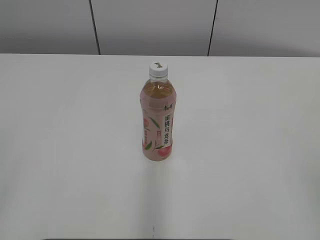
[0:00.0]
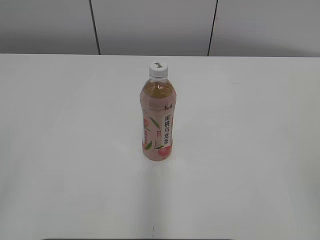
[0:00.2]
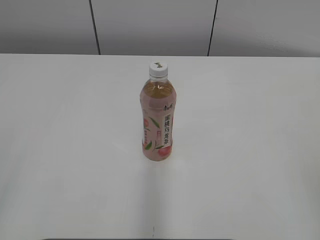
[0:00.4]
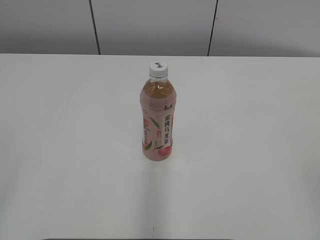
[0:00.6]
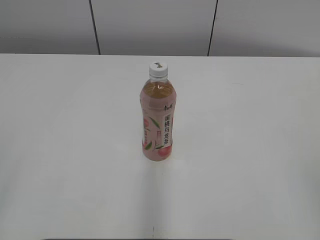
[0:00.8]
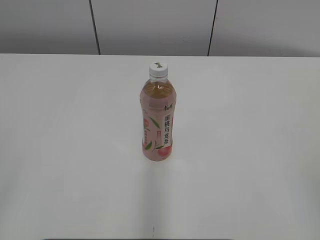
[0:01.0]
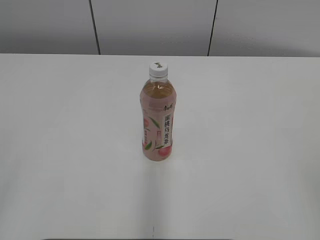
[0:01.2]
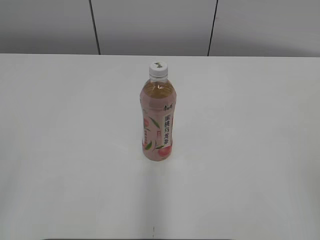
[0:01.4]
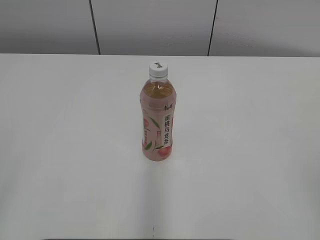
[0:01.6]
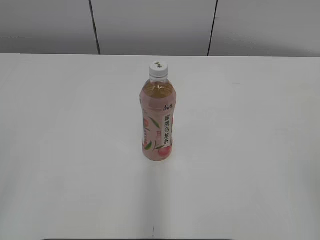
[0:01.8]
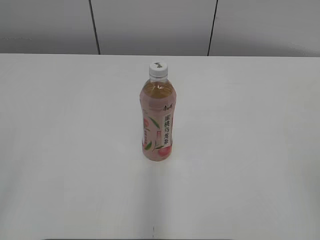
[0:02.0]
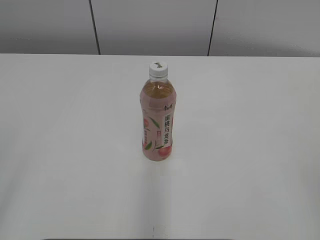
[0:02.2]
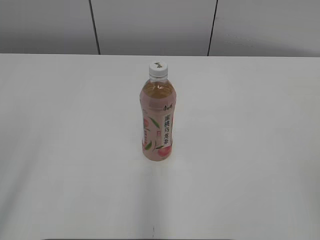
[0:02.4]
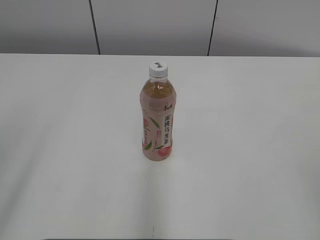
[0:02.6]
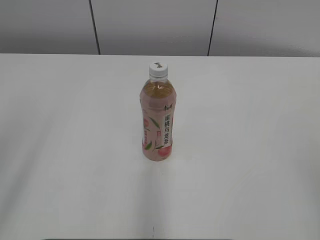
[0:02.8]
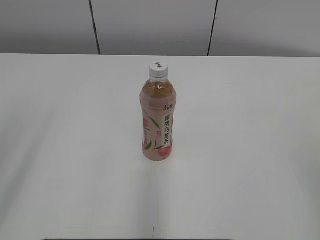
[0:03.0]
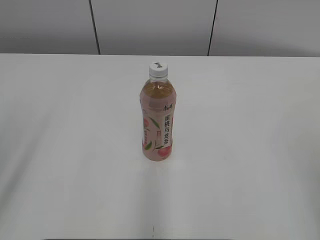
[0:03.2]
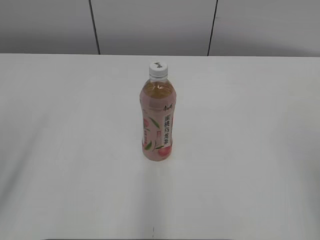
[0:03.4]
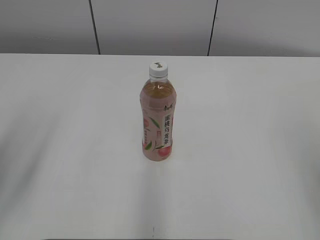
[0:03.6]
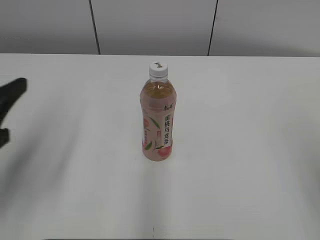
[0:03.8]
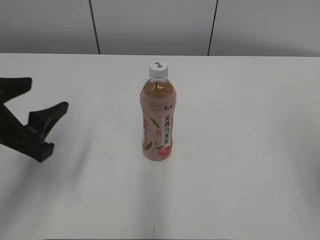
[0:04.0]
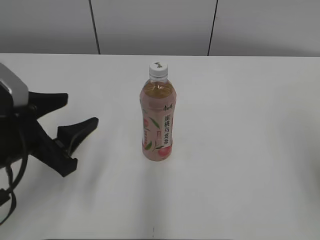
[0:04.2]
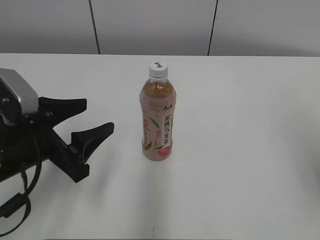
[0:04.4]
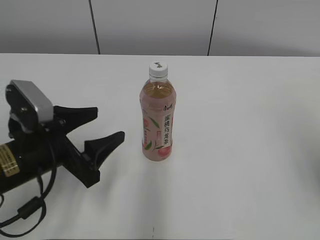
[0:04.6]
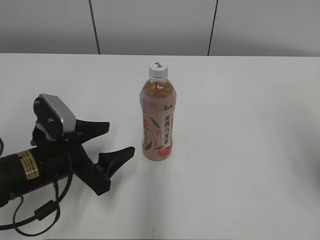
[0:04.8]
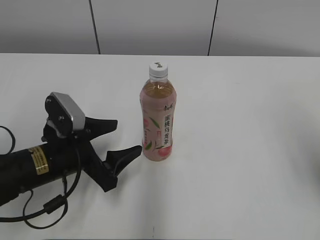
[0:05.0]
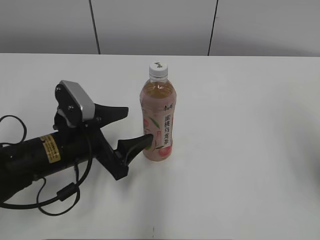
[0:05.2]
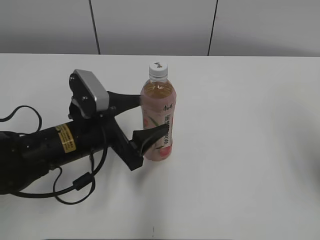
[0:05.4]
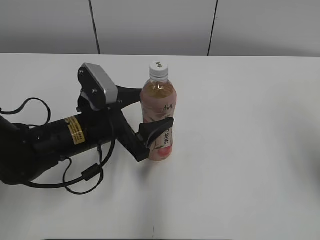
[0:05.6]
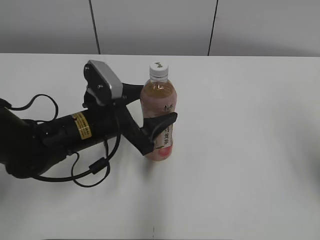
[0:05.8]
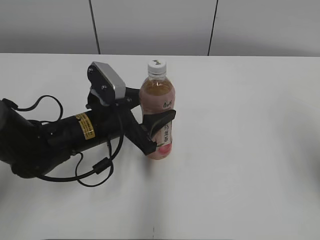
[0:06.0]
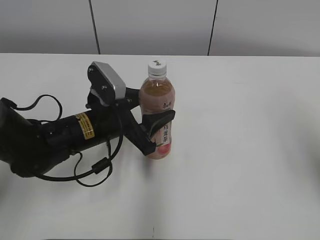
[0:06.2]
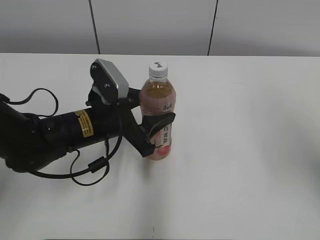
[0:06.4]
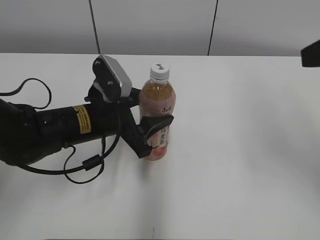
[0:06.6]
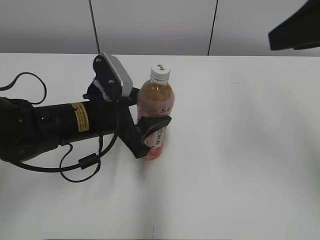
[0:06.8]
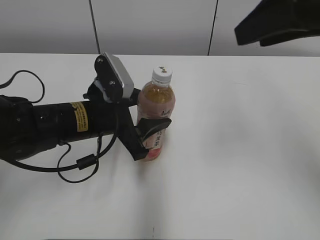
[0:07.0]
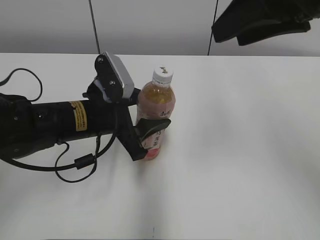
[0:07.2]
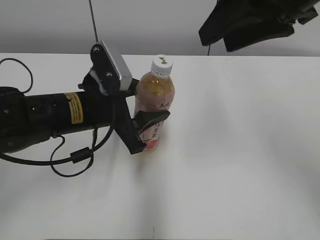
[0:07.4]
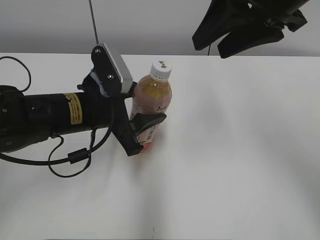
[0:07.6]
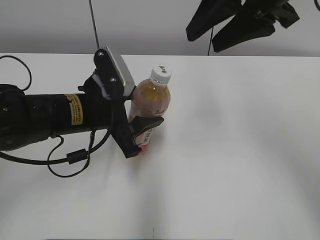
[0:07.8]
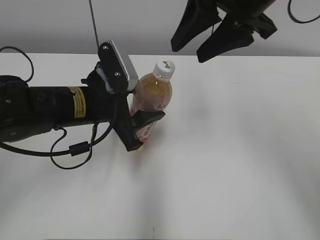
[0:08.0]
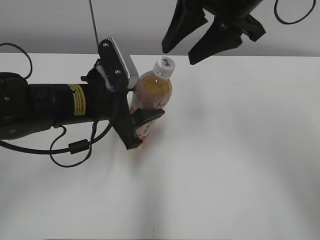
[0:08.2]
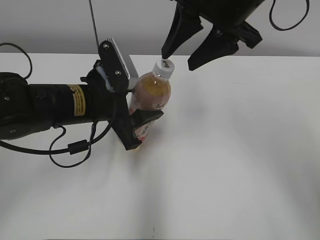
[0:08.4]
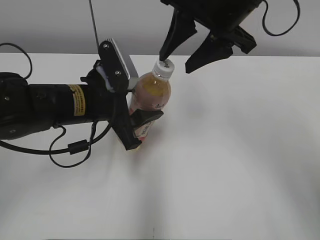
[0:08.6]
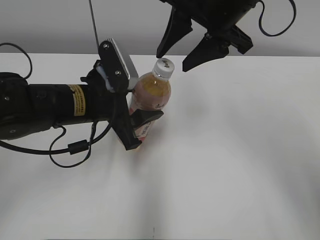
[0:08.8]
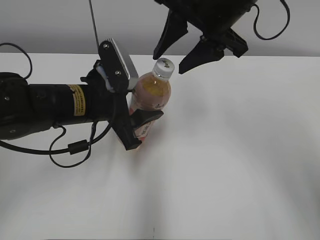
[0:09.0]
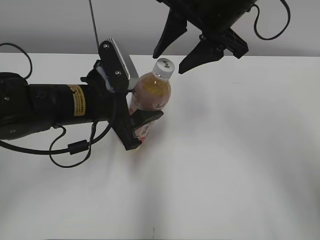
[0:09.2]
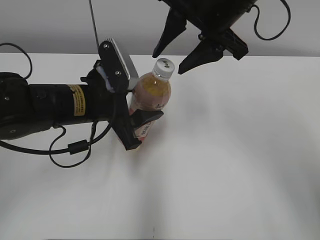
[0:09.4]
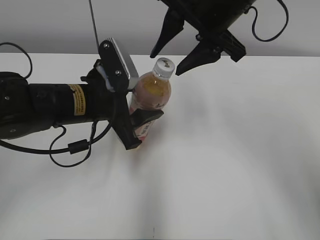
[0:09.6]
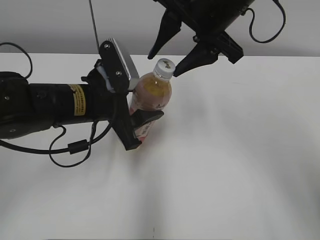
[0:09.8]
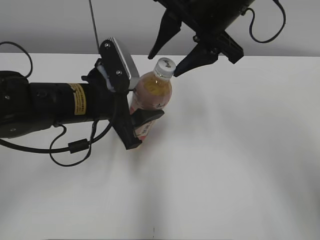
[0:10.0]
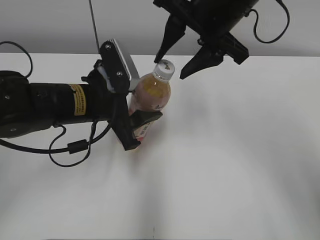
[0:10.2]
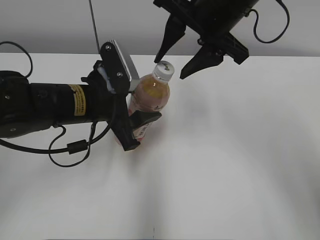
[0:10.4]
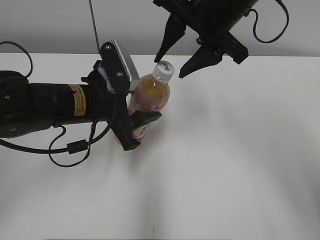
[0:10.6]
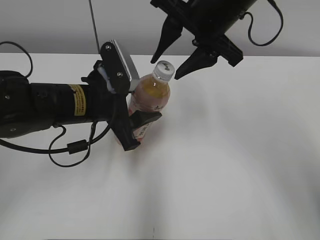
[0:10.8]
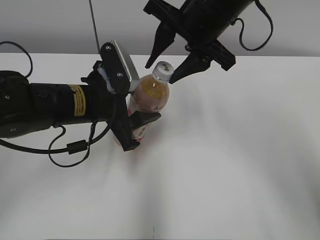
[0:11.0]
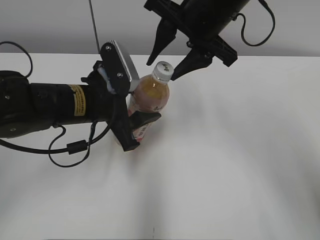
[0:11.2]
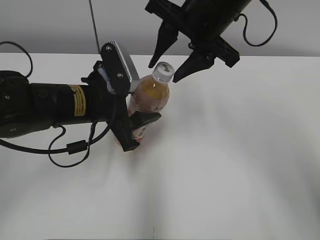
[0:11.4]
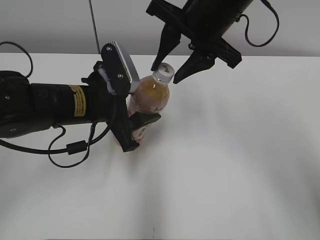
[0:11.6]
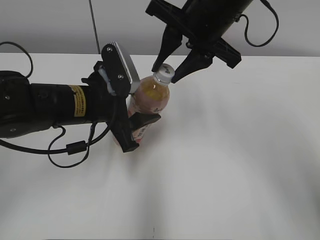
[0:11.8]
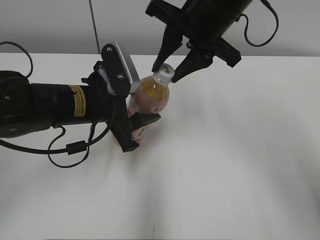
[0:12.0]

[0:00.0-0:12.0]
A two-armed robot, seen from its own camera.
Step, 0:00.0 to 0:06.0: Grasp the bottle and move it to the center of the table with the left gripper.
Step, 0:06.2 to 0:07.8: Lift the bottle and move it to the center of the table with the left gripper.
0:03.0 to 0:04.4: The left gripper is displaced downward, forward and to the right by about 25 cm.
0:04.4 to 0:06.0: The left gripper travels forward and to the right by some 10 cm, and opens, then closes again.
0:06.0 to 0:07.6: The left gripper closes up. The right gripper travels to the left, forward and upward by roughly 20 cm.
0:07.6 to 0:09.0: The right gripper travels forward and to the left by about 5 cm.
0:09.0 to 0:10.4: The grippers stay close to where they were, moving slightly.
0:10.4 to 0:12.0: The right gripper closes its fingers.

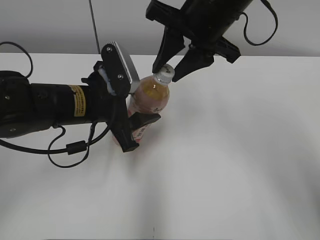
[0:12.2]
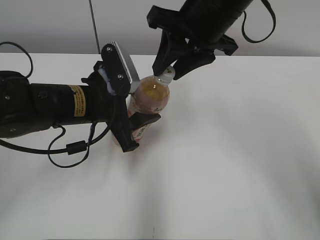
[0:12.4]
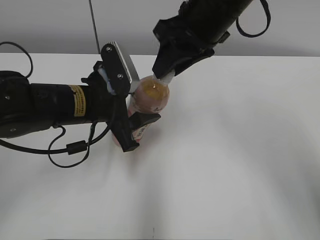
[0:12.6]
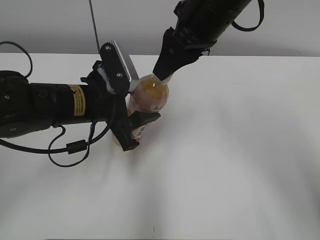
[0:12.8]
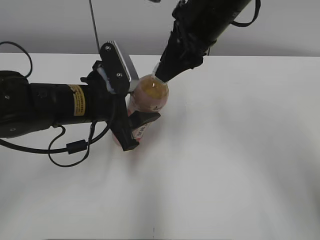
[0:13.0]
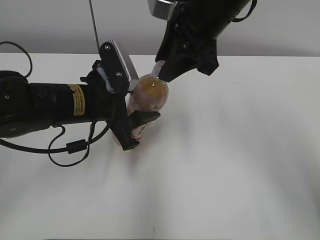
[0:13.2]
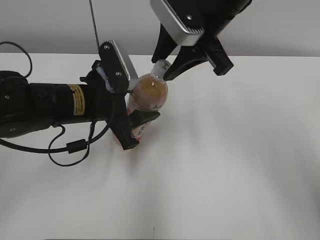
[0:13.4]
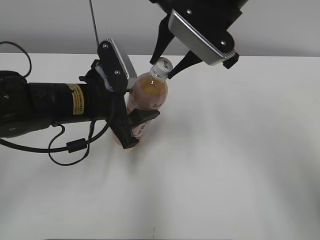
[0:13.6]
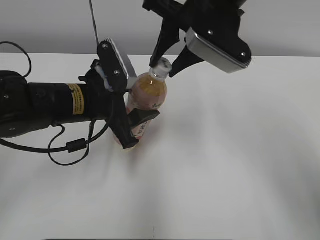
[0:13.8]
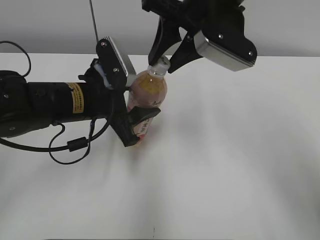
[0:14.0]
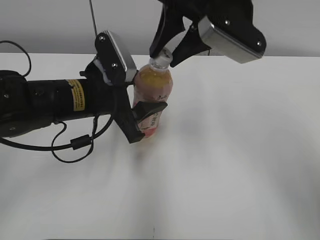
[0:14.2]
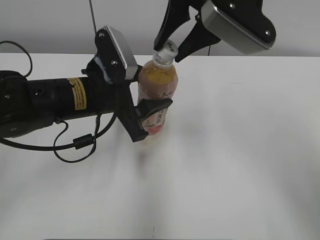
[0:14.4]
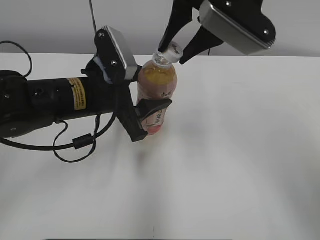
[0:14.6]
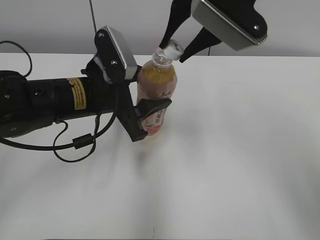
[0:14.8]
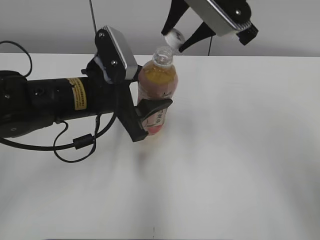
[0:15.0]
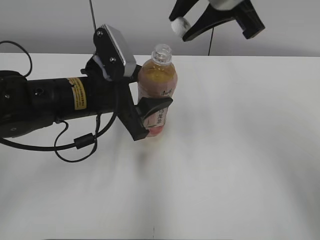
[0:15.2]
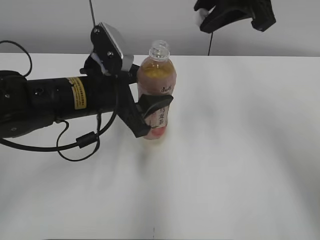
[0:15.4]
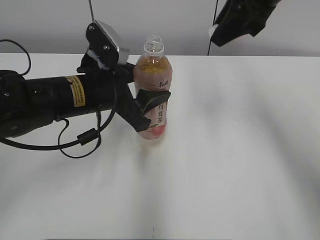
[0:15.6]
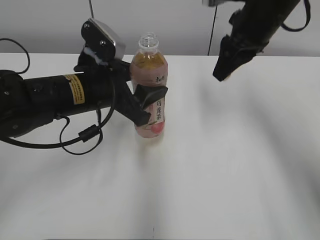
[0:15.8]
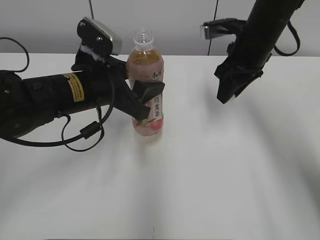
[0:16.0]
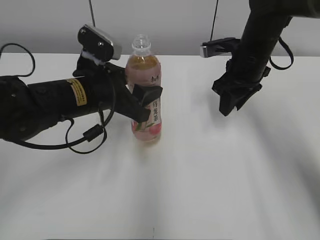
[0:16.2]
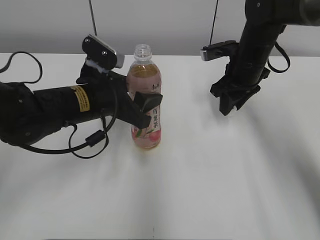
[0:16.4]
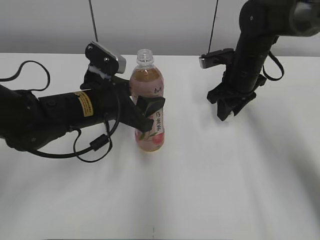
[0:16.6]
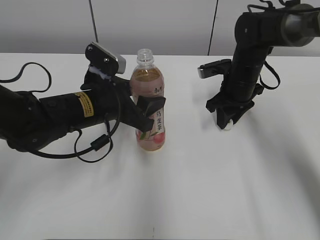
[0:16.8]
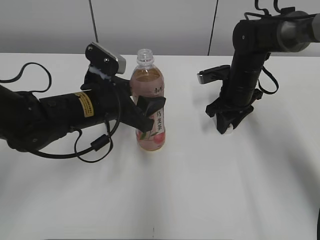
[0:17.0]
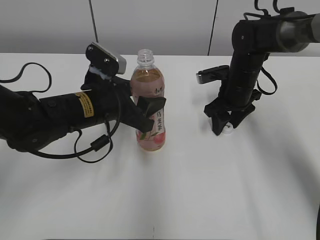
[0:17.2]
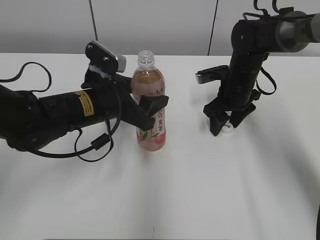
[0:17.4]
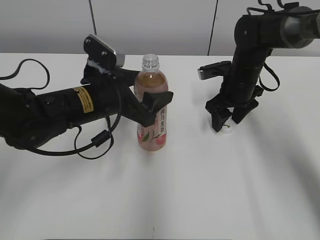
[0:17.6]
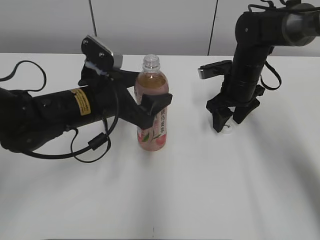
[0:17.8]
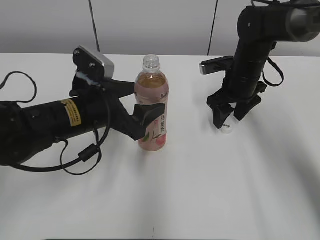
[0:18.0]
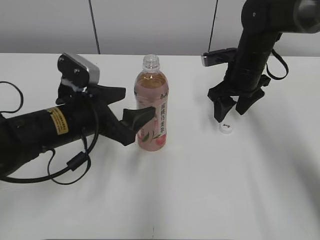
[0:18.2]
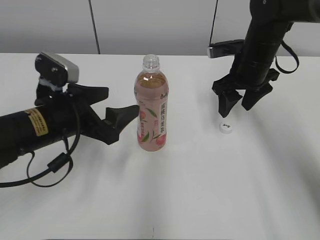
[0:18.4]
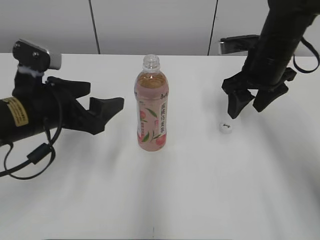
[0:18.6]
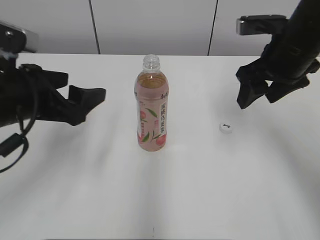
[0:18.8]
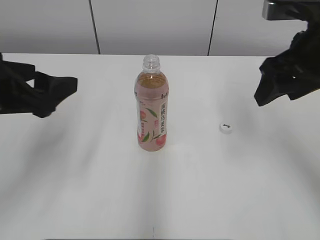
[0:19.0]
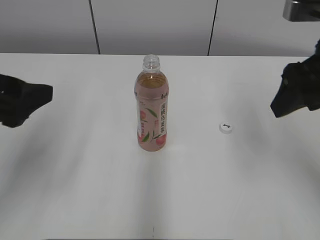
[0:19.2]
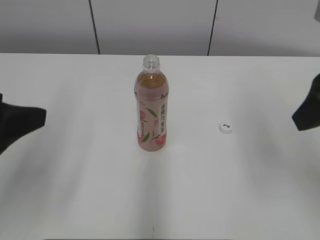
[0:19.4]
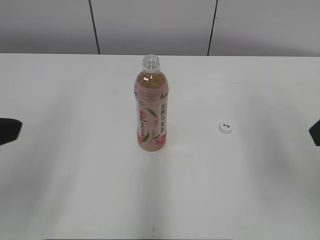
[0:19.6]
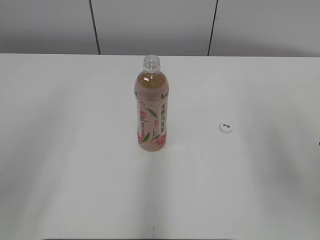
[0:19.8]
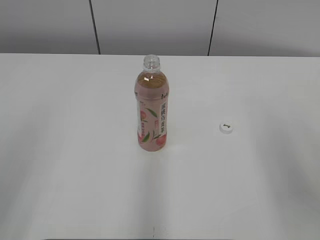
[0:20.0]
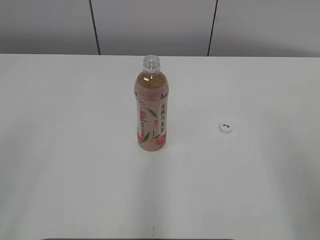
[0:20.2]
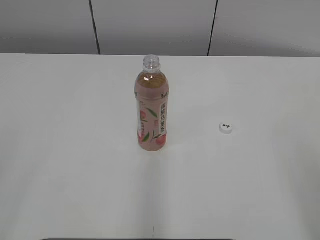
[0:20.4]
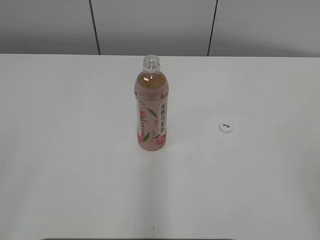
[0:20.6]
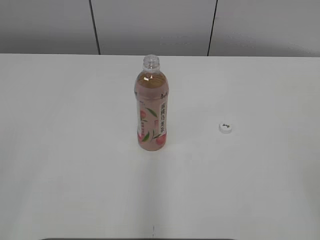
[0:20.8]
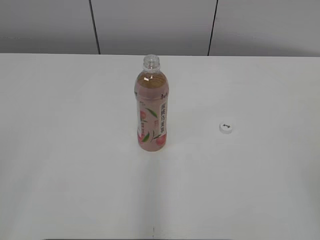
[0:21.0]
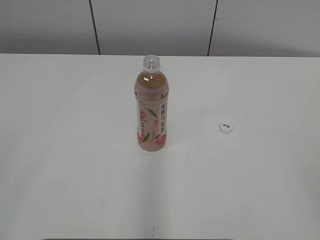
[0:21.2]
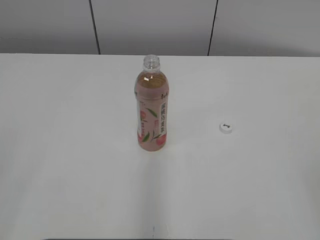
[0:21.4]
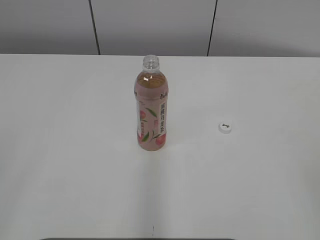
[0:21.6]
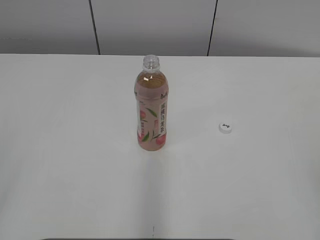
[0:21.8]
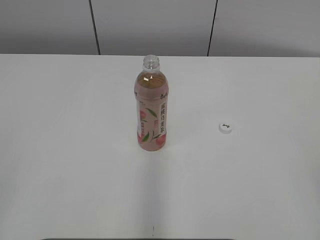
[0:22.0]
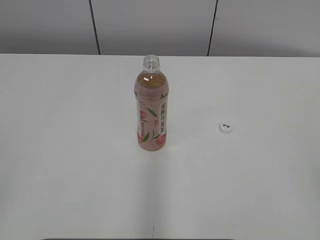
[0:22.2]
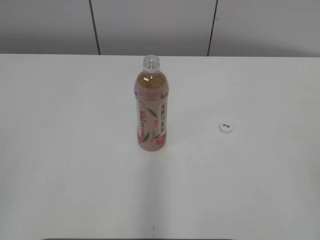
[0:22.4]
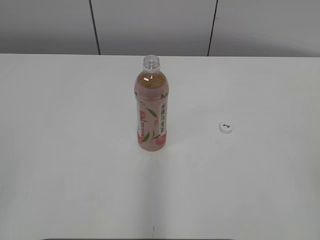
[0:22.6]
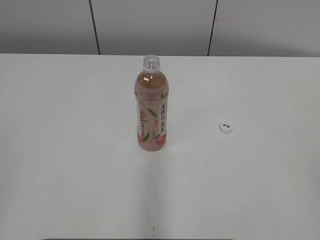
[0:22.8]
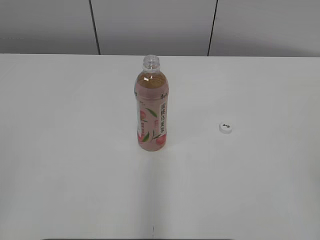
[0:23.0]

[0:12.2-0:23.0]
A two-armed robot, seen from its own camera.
Step, 0:12.2 to 0:14.4: Unscrew the bottle cap with the right gripper while holding the bottle with the left gripper.
Step, 0:14.8 to 0:17.2: Place the bottle cap on the table with the right gripper.
0:13.8 to 0:15.2: The right gripper ends up about 5 cm from where it was.
0:15.2 to 0:16.8: The right gripper is displaced downward and forward by roughly 25 cm.
0:16.8 to 0:18.4: The left gripper changes place by about 5 cm, and opens its fingers, while the right gripper opens.
0:18.4 to 0:20.0: The left gripper travels backward, upward and to the left by some 30 cm; the right gripper shifts about 30 cm backward and upward.
